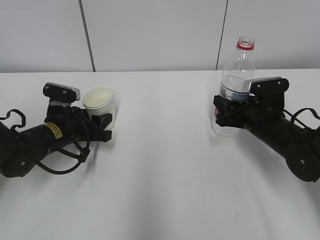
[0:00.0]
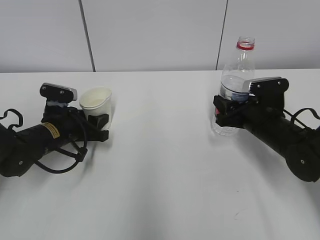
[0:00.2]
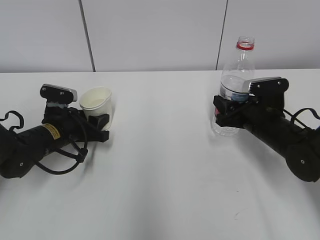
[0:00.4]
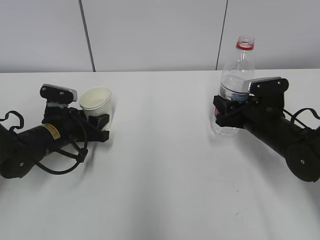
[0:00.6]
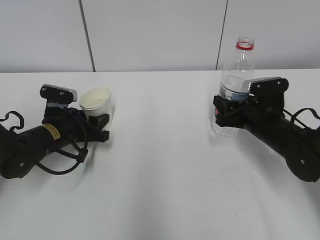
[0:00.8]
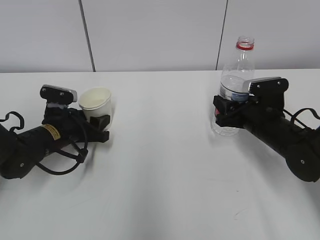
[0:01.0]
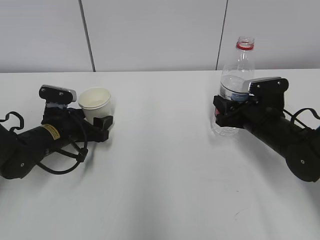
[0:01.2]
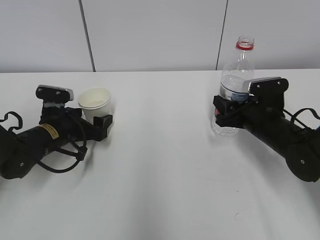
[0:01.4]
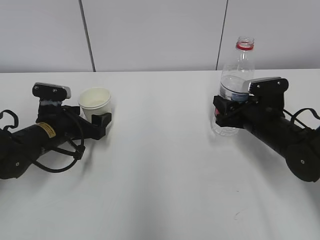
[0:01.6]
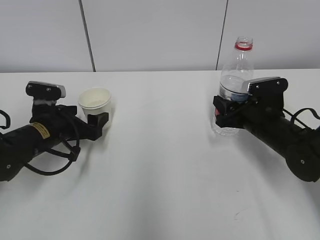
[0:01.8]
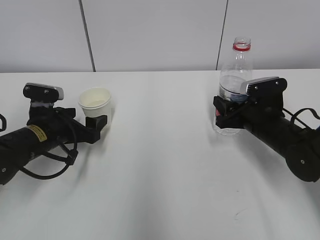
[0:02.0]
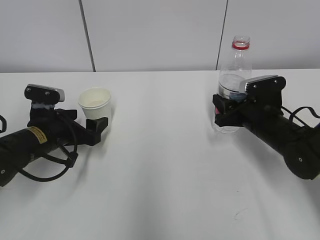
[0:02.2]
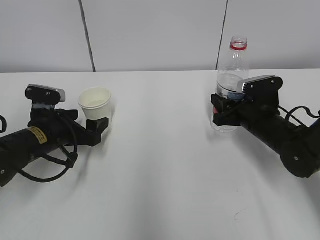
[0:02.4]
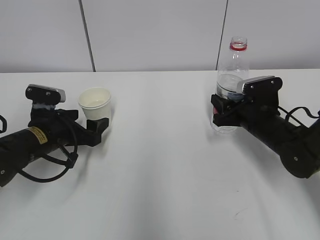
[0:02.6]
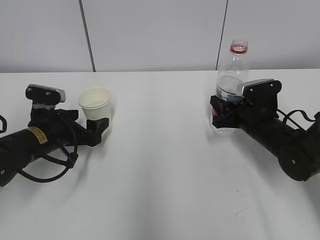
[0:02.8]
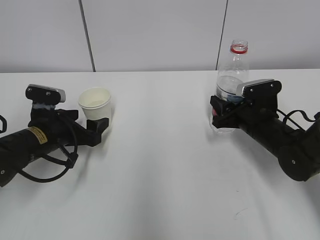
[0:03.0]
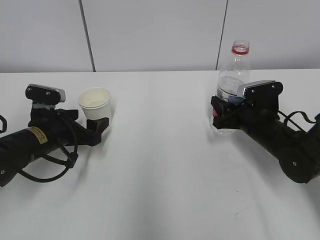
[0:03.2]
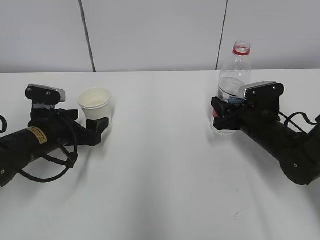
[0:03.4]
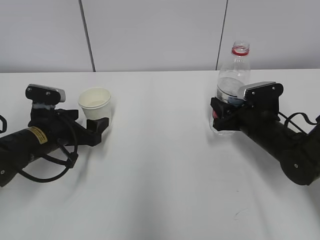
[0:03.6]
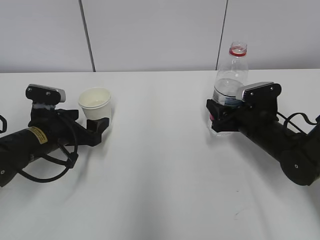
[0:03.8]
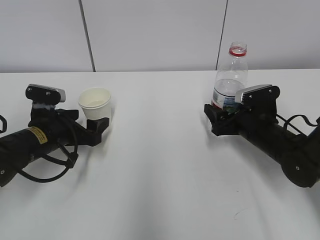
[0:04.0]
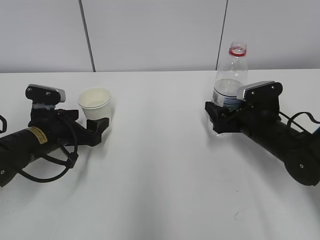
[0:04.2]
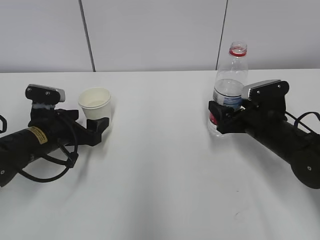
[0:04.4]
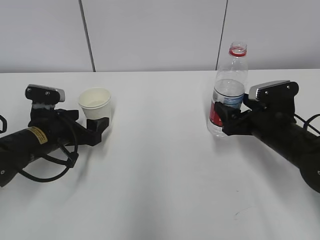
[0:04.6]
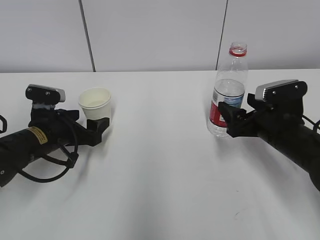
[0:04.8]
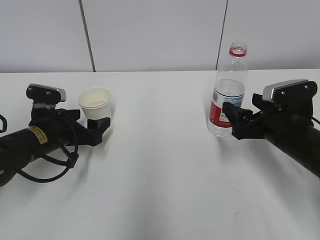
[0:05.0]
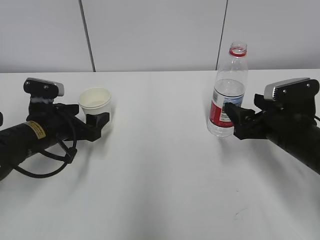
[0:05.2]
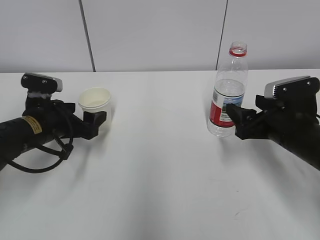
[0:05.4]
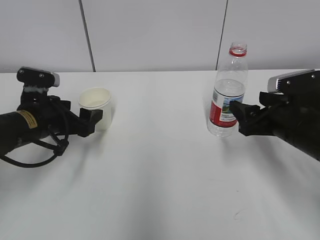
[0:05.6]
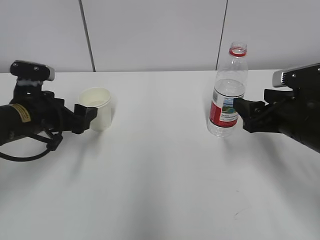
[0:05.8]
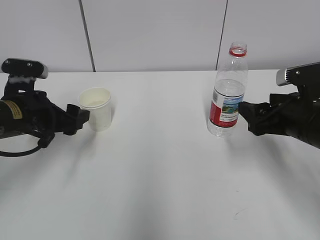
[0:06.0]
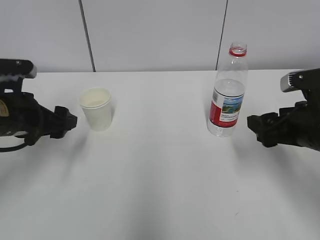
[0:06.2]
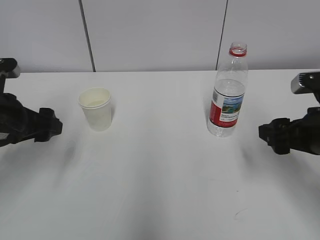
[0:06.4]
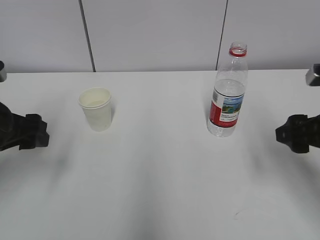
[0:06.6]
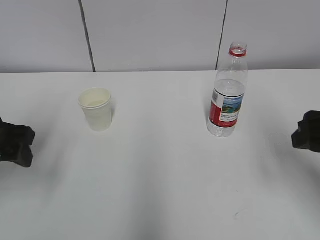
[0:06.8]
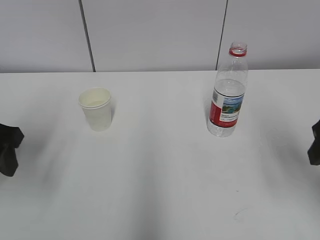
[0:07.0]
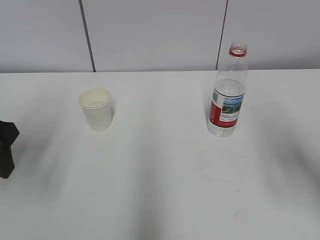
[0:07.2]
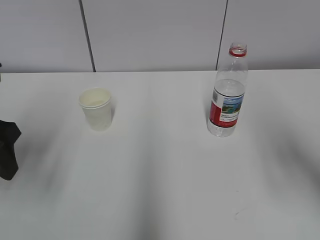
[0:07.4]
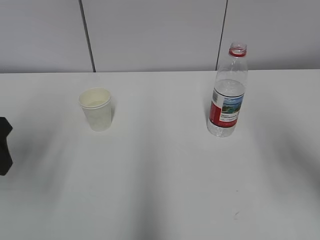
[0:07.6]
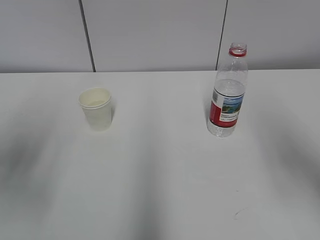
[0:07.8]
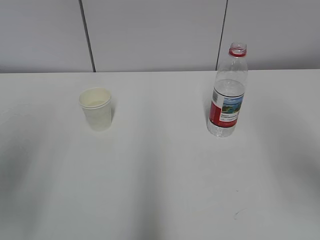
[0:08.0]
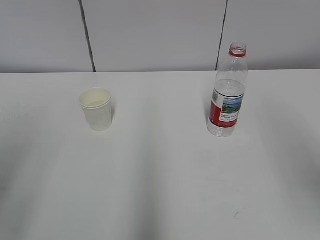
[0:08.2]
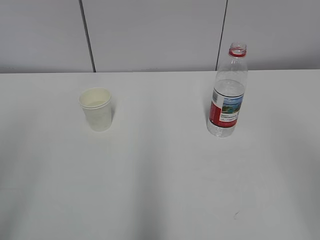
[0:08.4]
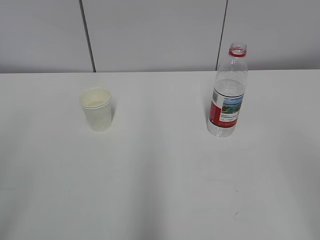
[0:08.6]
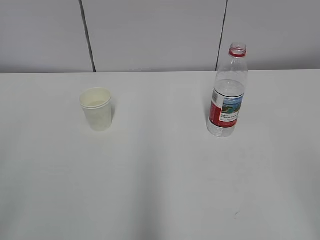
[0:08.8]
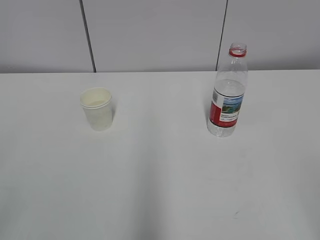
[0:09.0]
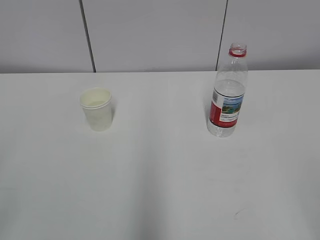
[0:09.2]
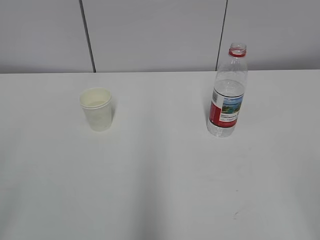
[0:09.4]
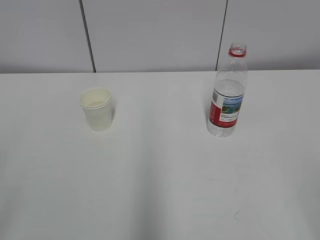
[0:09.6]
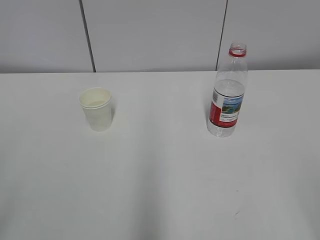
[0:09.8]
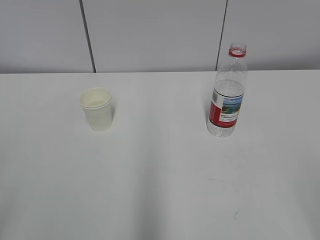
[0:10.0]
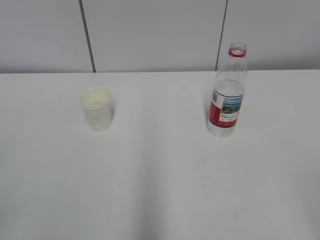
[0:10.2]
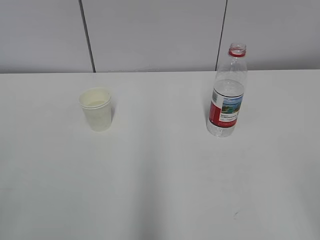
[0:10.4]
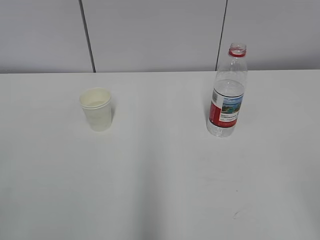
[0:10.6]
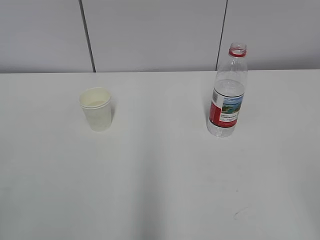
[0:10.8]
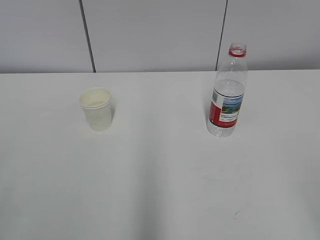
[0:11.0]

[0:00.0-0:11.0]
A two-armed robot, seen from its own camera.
0:00.0 to 0:01.6: The left gripper opens up.
0:01.6 to 0:03.2: There are only small adjustments of the grippers.
0:03.2 to 0:04.8: The right gripper is displaced backward by roughly 5 cm, and opens.
0:04.8 to 0:06.2: The right gripper travels upward and backward by about 10 cm; the left gripper shifts approximately 10 cm upward.
0:06.2 to 0:07.8: Both grippers travel together upward and backward, some 15 cm. The right gripper closes up.
0:07.8 to 0:09.4: The two grippers go some 20 cm backward.

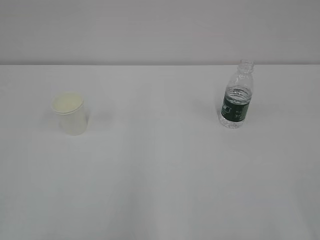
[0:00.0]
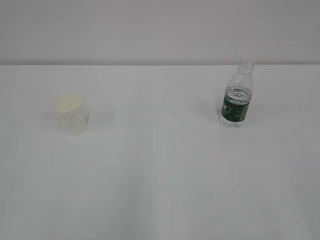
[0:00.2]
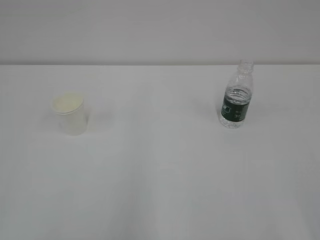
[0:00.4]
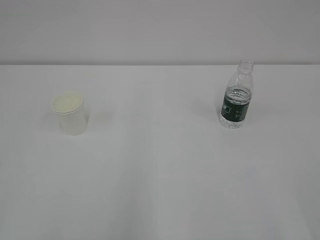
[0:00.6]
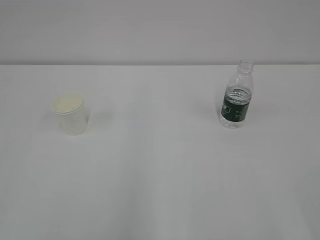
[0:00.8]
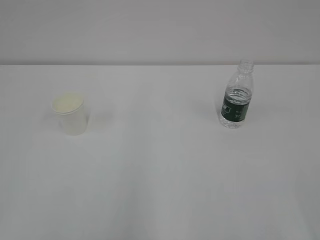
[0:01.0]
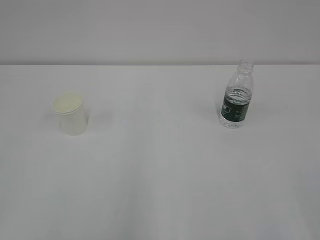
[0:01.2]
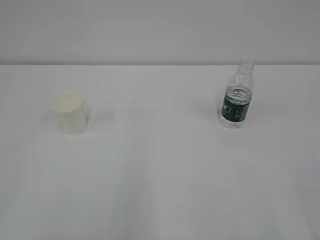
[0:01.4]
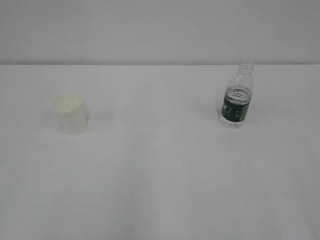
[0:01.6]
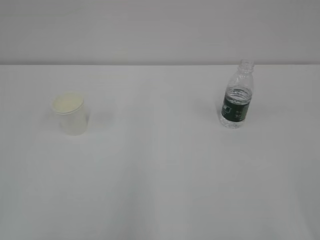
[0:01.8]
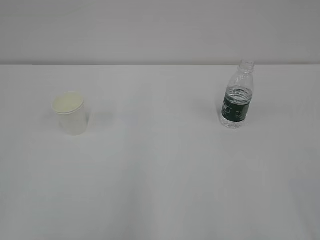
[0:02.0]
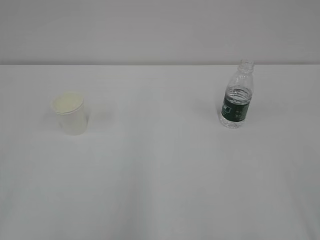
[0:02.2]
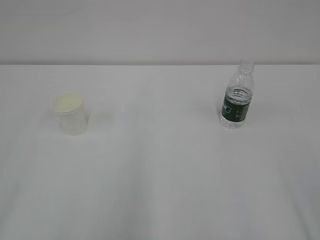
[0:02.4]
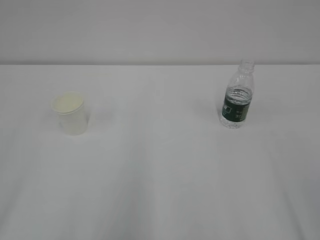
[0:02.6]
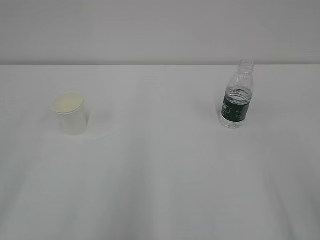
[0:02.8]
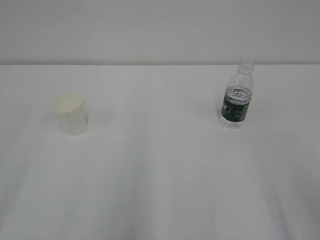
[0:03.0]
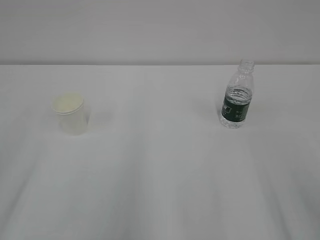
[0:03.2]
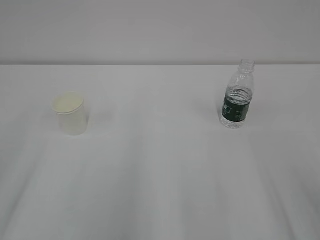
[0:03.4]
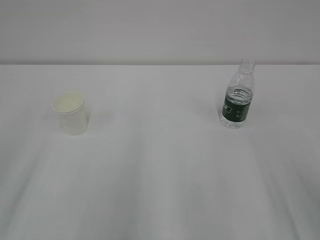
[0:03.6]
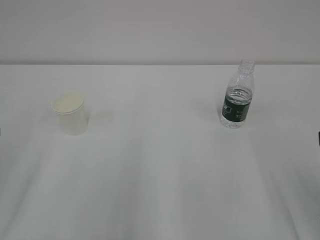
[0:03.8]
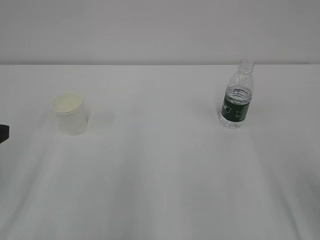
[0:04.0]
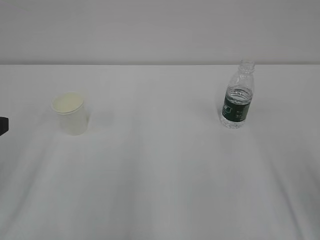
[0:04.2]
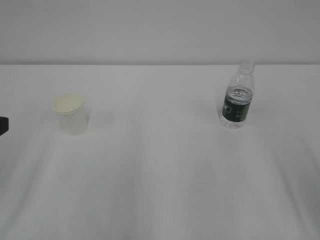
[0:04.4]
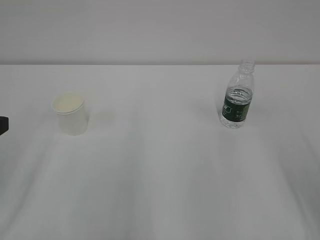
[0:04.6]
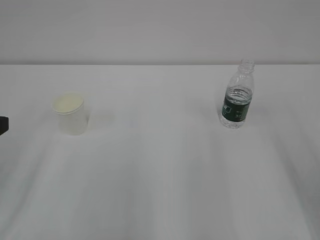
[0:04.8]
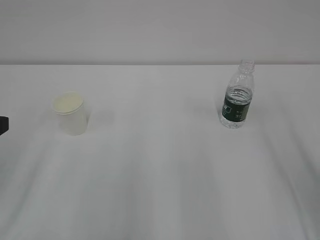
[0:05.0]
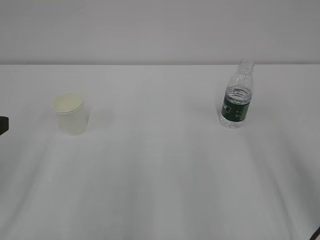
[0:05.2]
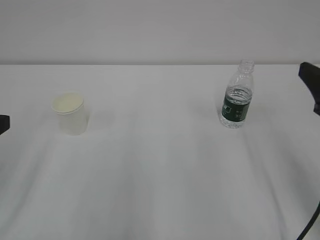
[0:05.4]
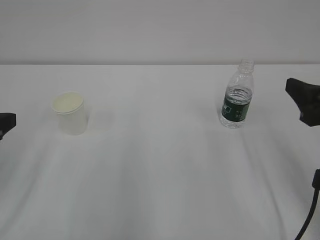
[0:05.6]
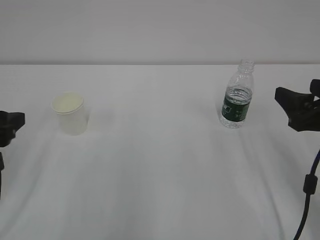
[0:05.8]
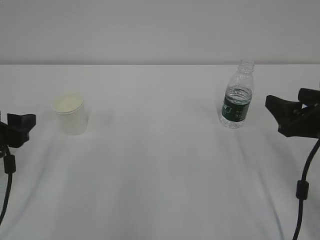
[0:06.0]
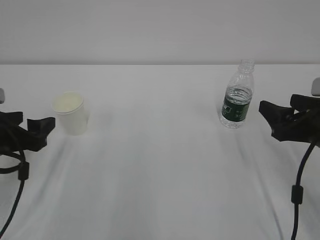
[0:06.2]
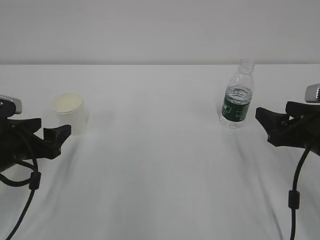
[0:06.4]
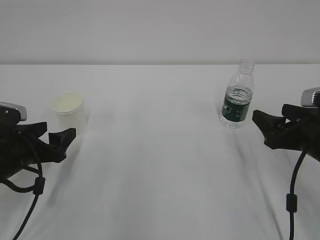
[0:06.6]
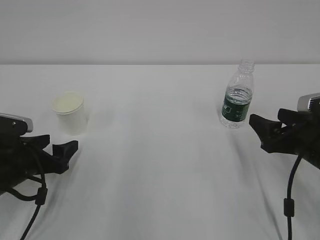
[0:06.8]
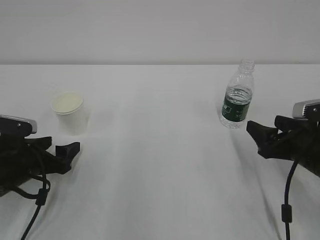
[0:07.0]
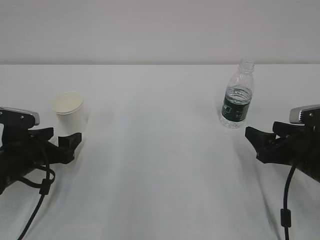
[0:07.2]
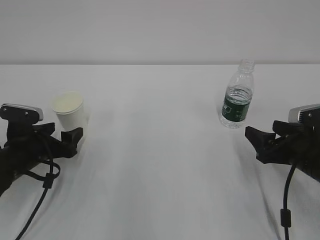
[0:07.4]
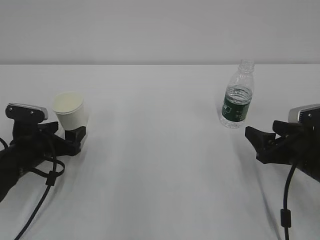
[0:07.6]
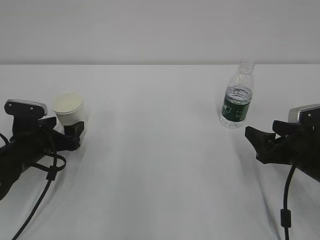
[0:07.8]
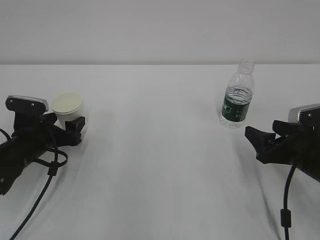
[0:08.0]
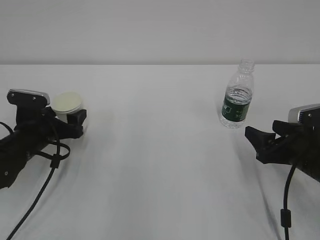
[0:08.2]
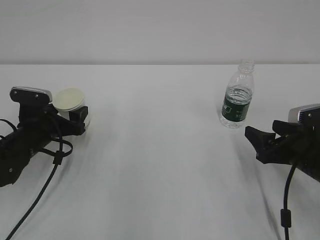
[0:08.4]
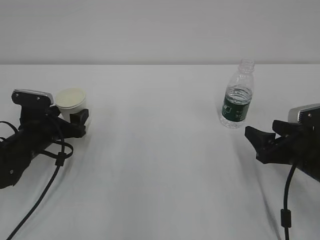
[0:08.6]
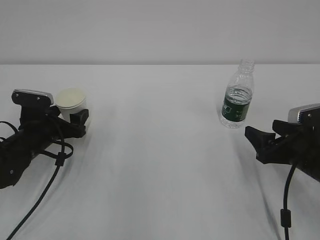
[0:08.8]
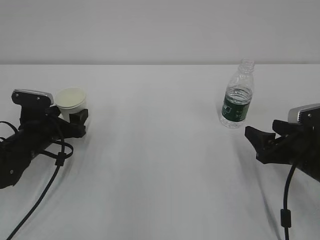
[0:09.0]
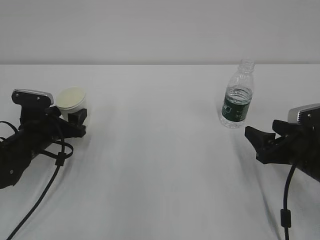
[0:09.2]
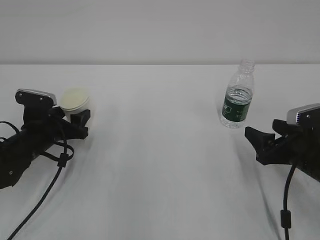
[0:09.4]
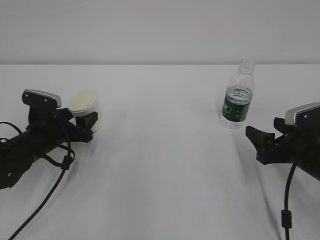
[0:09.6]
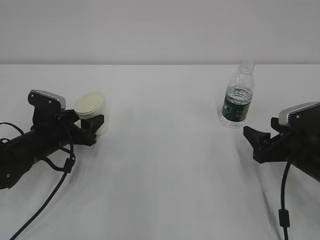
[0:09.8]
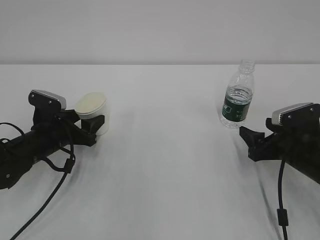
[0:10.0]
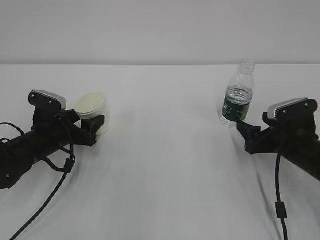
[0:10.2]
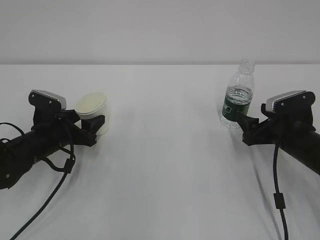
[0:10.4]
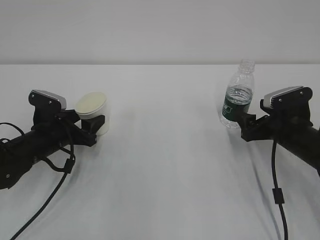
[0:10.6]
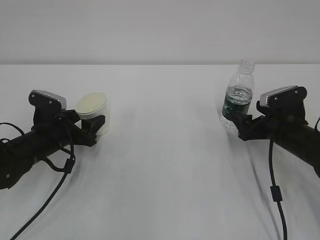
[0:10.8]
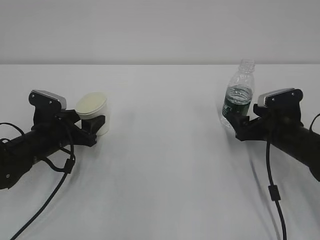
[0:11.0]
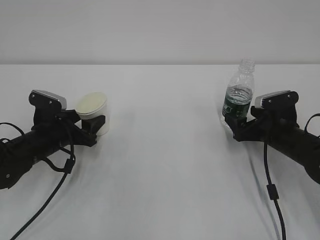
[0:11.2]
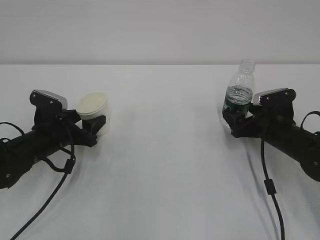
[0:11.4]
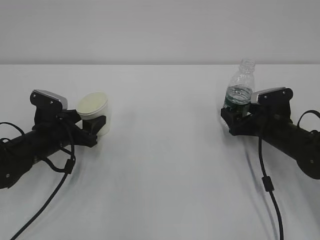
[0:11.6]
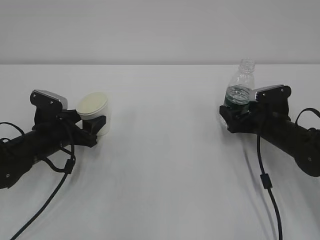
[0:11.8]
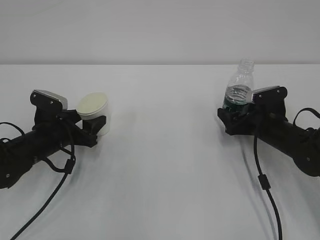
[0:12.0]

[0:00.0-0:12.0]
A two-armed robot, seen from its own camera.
0:04.4 to 0:06.0: The left gripper heads downward and forward, covering roughly 10 cm, while the right gripper shifts approximately 10 cm forward and downward.
0:06.0 to 0:07.6: The right gripper shifts roughly 10 cm downward. Meanwhile the left gripper travels downward and forward by approximately 15 cm.
0:07.6 to 0:09.0: There are only small adjustments of the grippers.
0:09.0 to 0:10.4: The right gripper goes some 5 cm forward; the left gripper closes.
0:10.4 to 0:12.0: The right gripper moves forward, roughly 5 cm.
